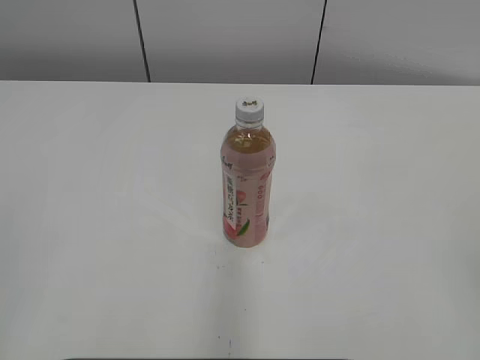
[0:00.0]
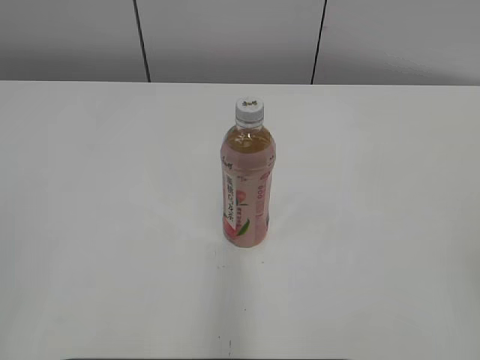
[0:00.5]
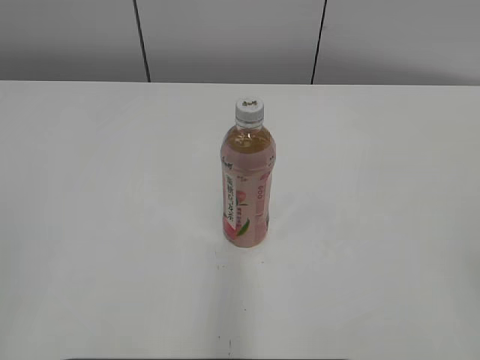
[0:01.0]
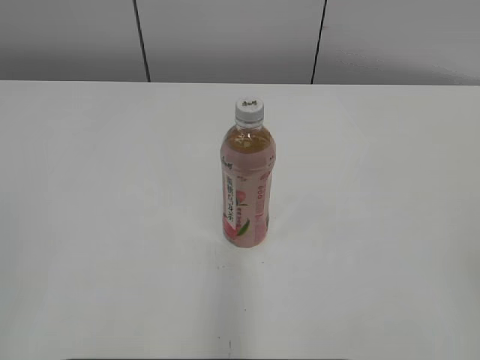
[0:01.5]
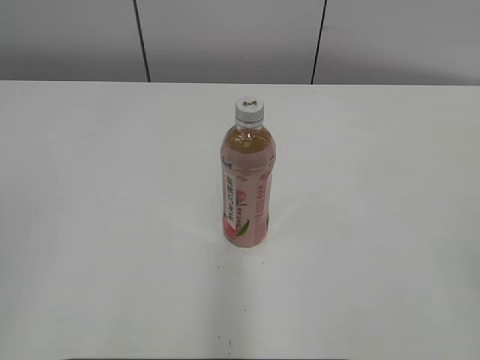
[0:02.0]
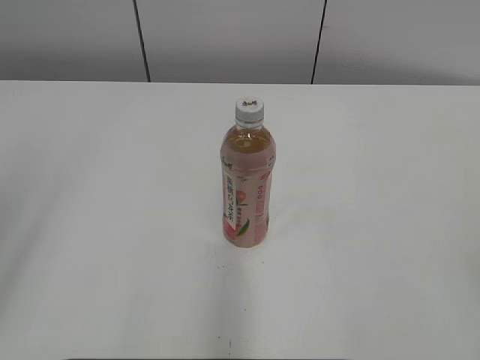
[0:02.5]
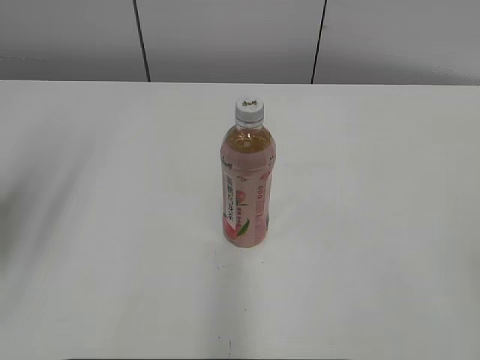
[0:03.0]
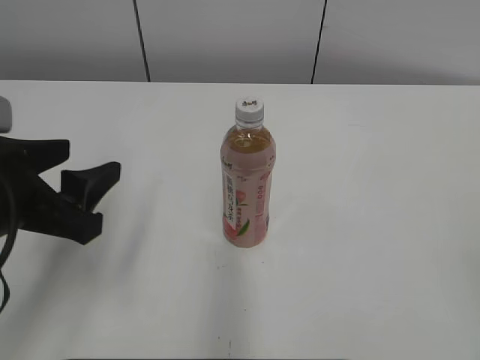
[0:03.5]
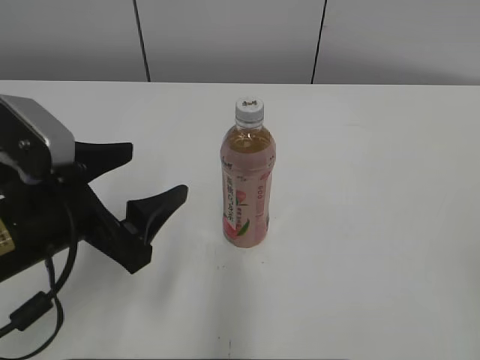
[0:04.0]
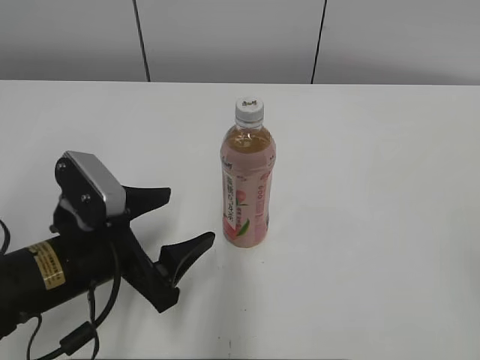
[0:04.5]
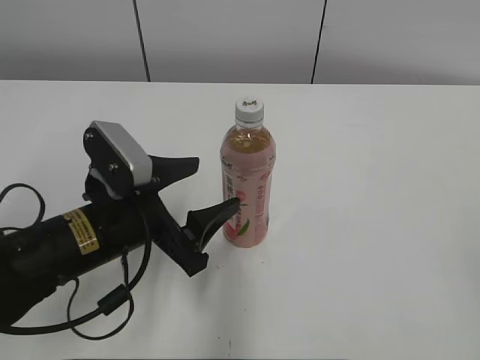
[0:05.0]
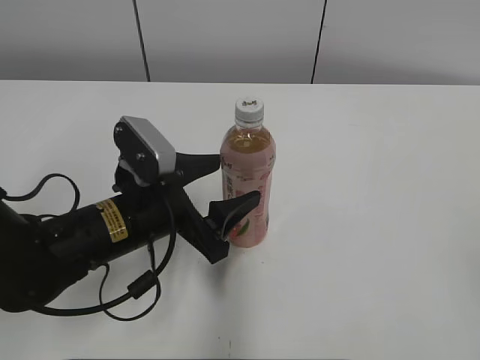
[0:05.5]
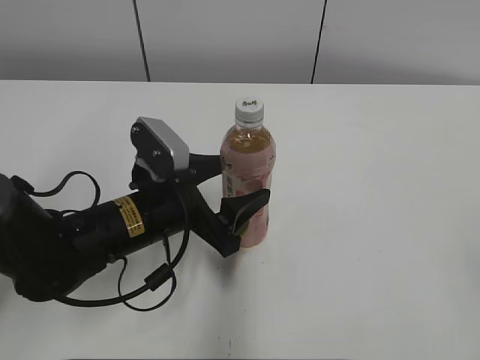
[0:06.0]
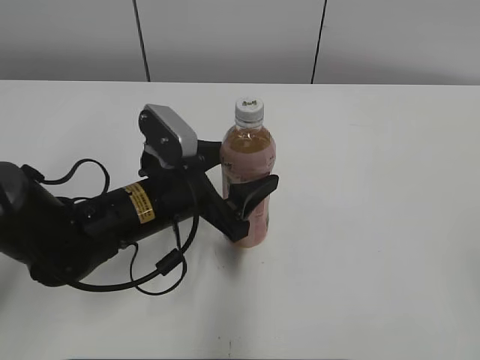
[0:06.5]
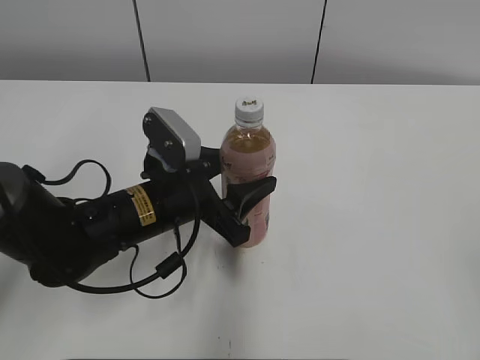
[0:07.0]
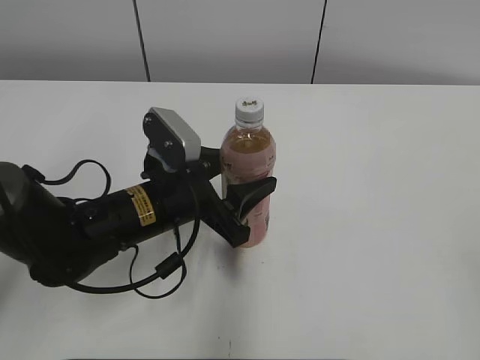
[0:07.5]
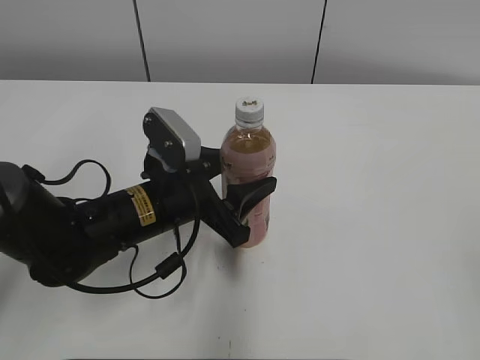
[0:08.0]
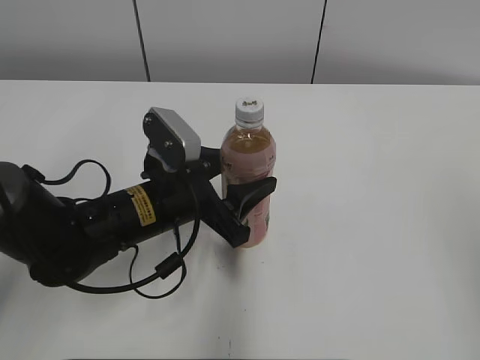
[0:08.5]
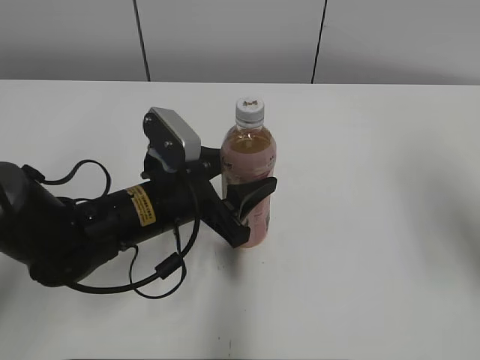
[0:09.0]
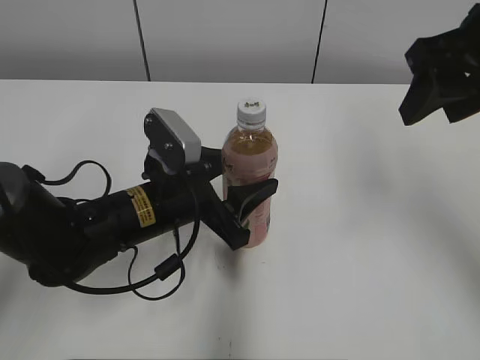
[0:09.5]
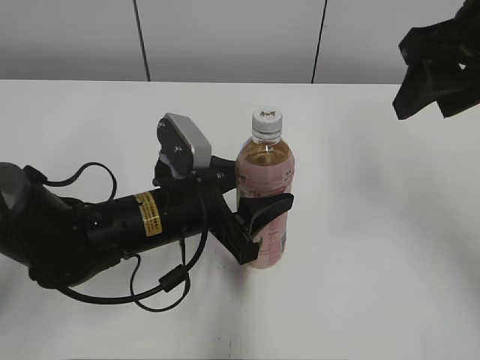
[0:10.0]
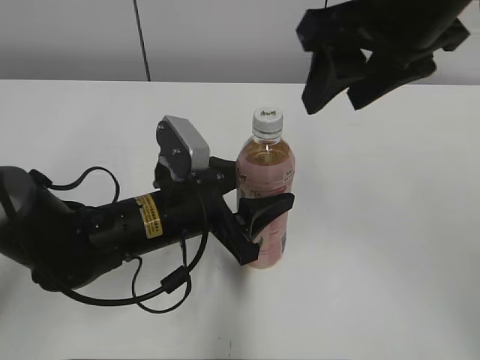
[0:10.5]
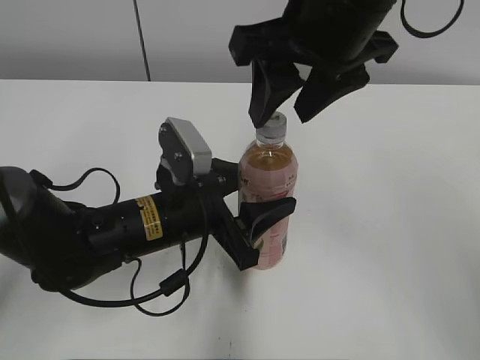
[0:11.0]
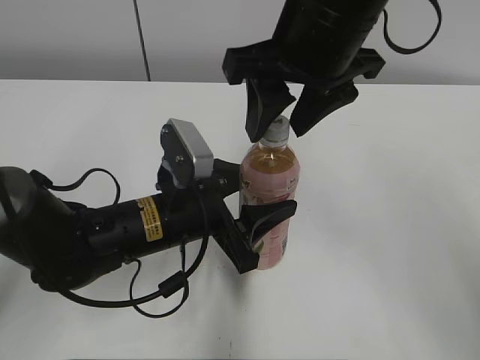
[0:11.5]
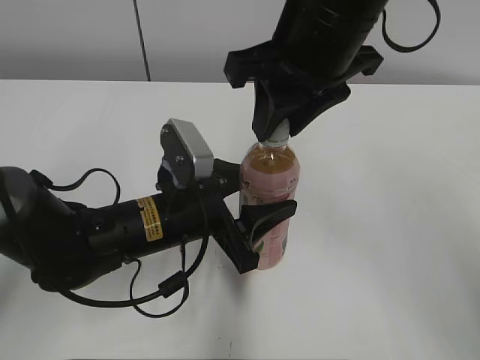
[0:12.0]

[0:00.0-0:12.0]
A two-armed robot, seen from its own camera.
Step, 0.0 to 7.0 s: Grab the Peach Oolong Tea with the left hand.
2.0 to 4.0 s: The left gripper heads forward, downward and to the right, covering approximately 25 cm, and opens.
4.0 to 6.0 s: The left gripper goes approximately 10 cm to the right, forward and downward.
6.0 to 8.0 s: The grippers make only small movements.
8.0 to 10.0 s: The right gripper goes some 30 cm forward.
10.0 to 12.0 s: The right gripper heads to the left, covering some 15 cm, and closes.

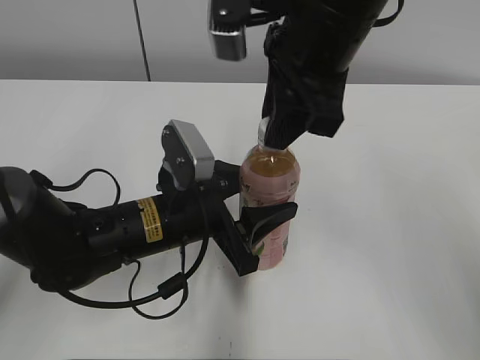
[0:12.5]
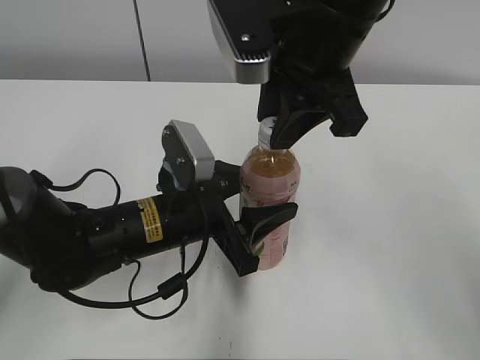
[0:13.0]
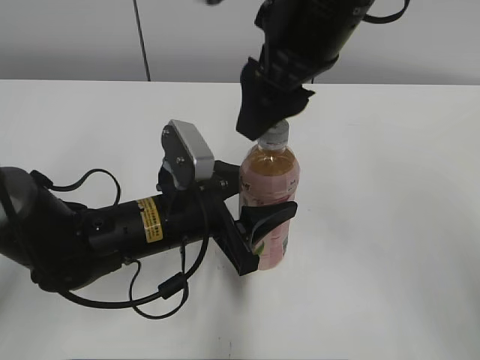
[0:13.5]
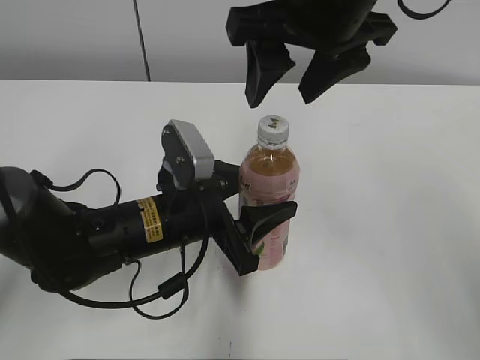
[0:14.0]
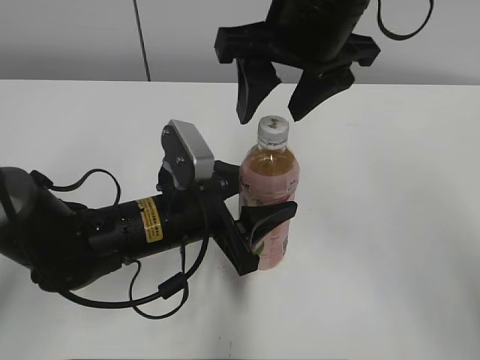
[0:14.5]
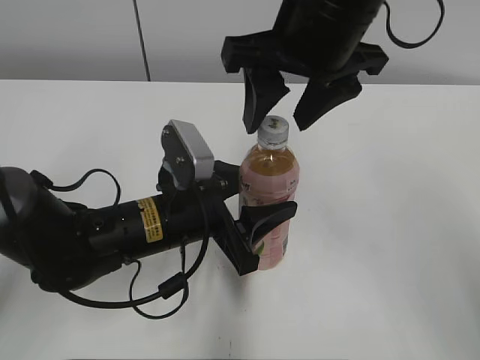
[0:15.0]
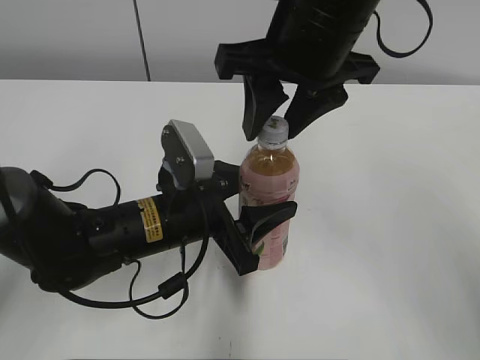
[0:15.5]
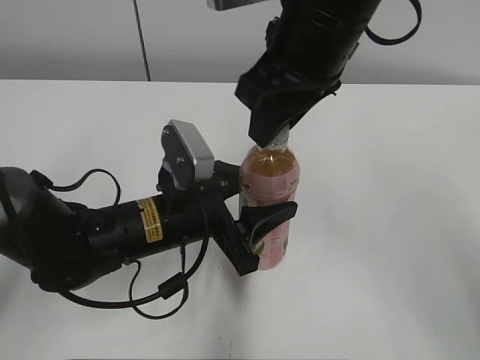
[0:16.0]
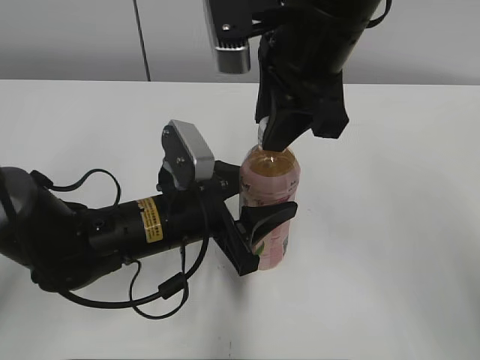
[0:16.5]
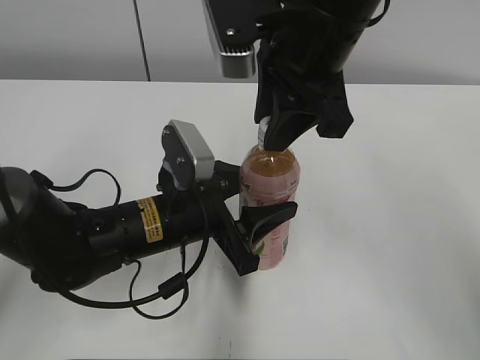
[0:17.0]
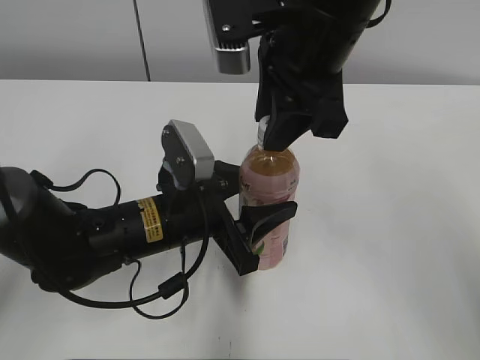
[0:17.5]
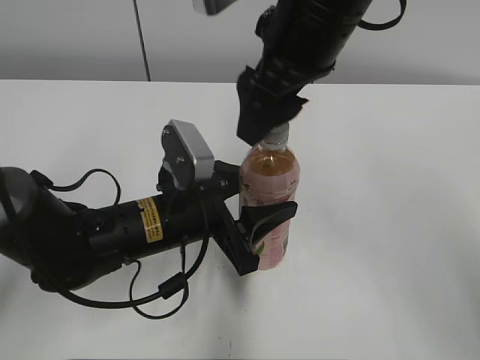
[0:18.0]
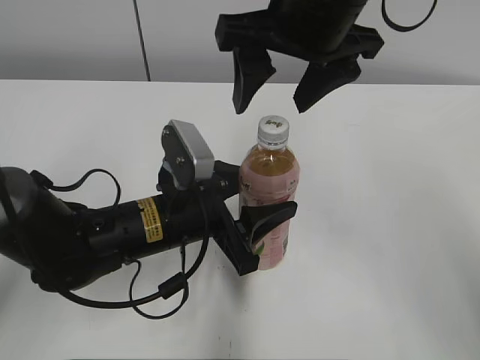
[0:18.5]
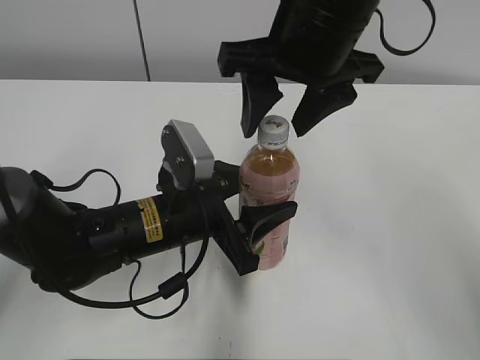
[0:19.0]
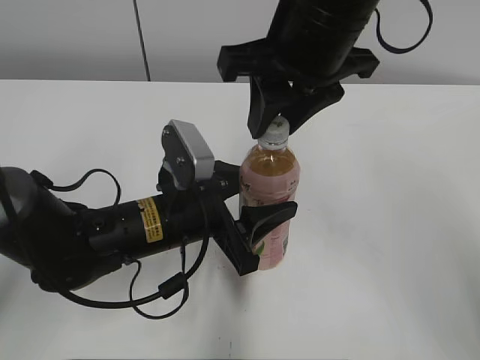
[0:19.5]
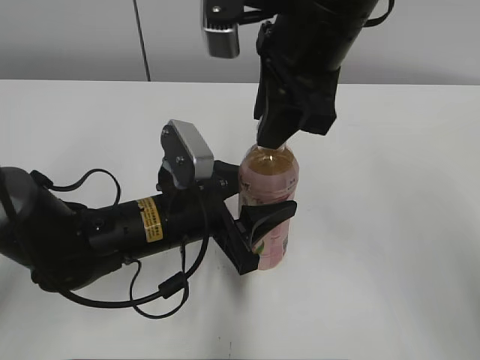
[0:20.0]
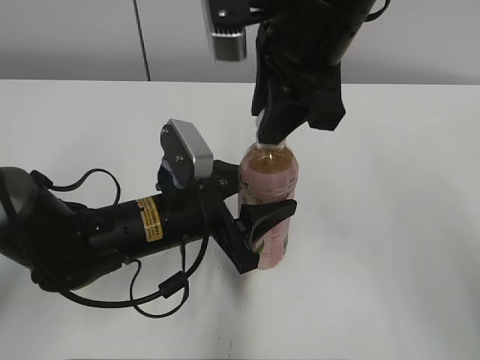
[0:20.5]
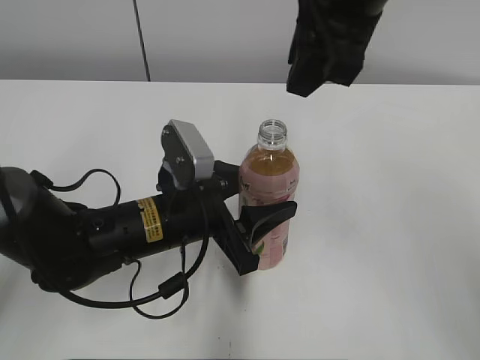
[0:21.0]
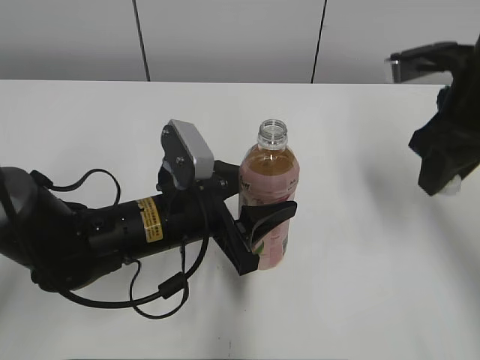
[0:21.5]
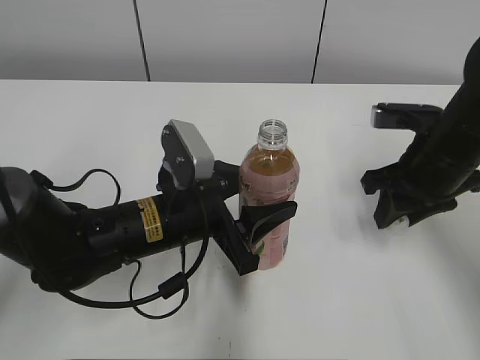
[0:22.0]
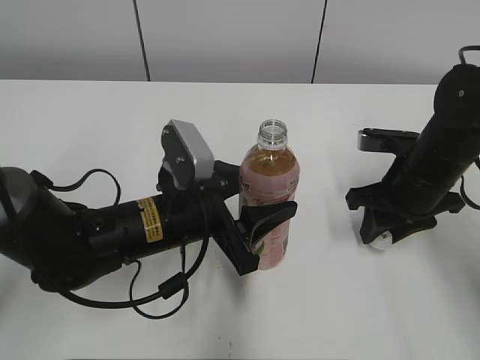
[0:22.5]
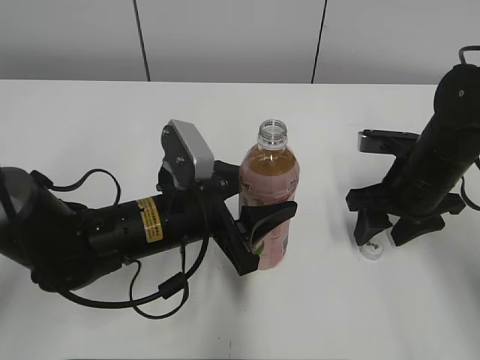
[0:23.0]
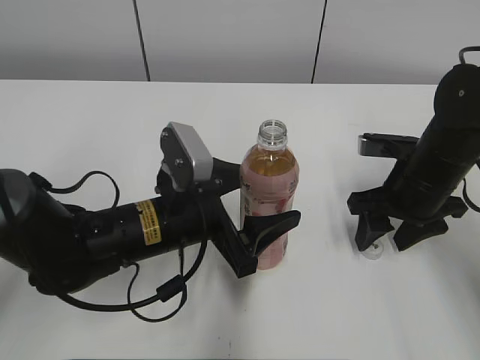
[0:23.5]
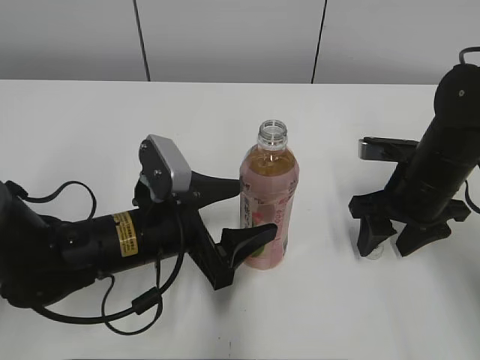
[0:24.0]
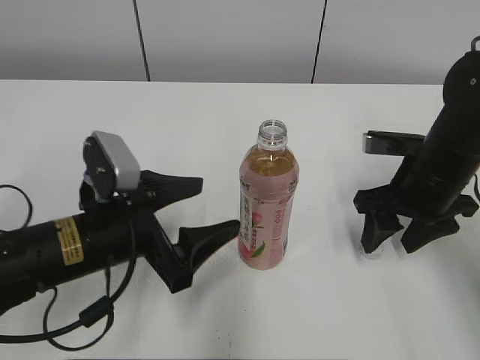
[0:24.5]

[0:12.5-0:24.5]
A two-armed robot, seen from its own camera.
Step, 21.5 to 23.0 s: Place the bottle cap on the right.
Step, 23.5 to 24.0 s: Place the Peach Oolong Tea with the left hand.
12.5 to 14.5 s: The right gripper opens its fingers.
14.5 to 16.5 s: The right gripper closes its fingers.
16.5 to 18.5 s: The right gripper opens up.
18.5 to 20.5 s: The right gripper closes.
20.5 to 22.5 s: The right gripper shifts roughly 25 cm downward and to the right.
22.5 to 24.5 s: The right gripper opens its fingers; the left gripper travels to the left by approximately 5 cm, and opens up.

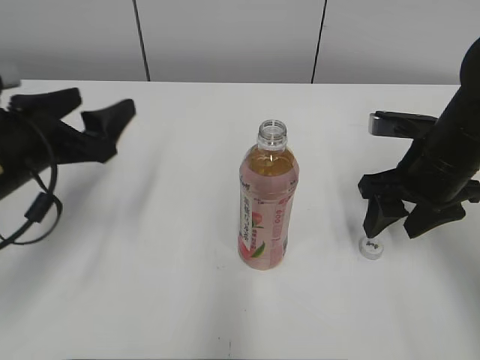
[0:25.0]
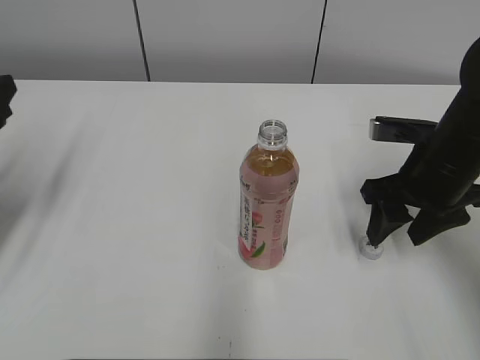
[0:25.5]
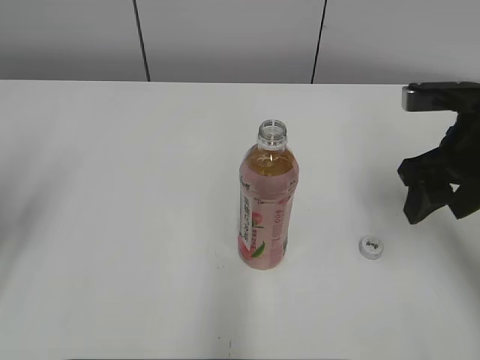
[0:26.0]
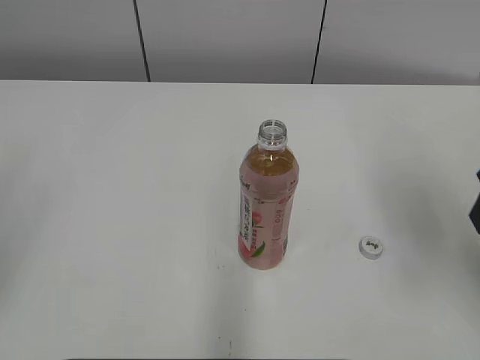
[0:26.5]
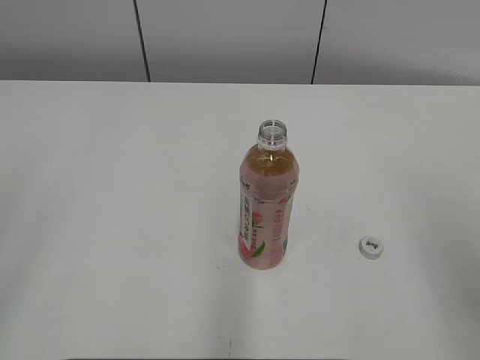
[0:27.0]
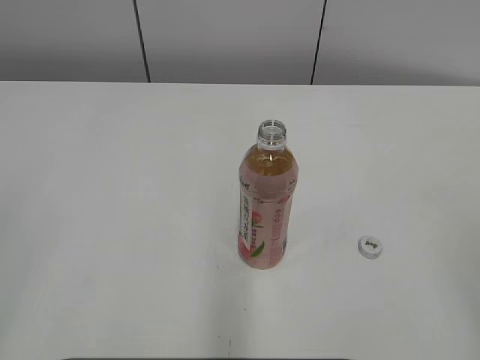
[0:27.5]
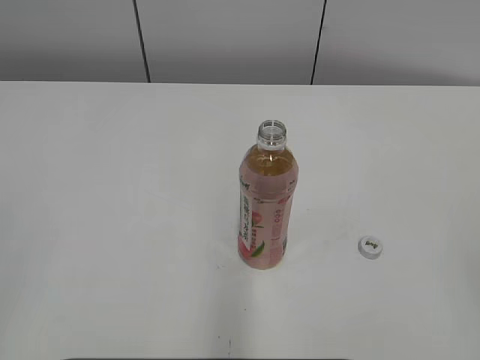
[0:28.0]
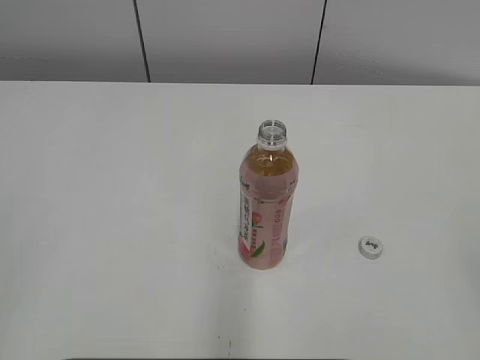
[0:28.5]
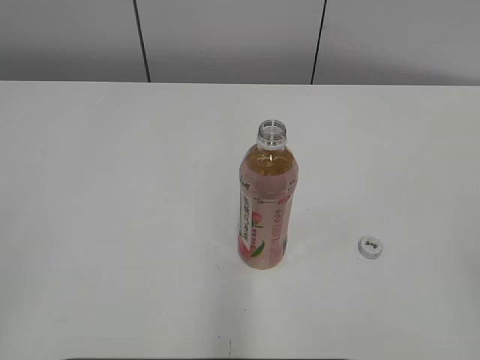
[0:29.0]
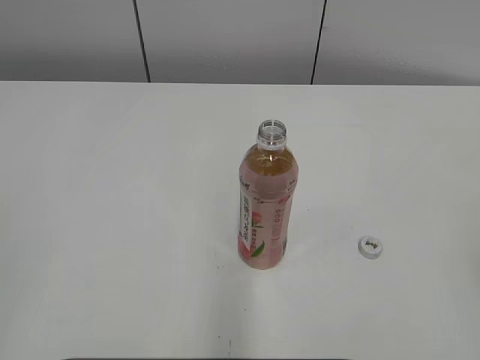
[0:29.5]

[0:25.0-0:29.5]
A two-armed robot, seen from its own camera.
25.0 to 27.0 s: The left gripper goes roughly 25 cm backward, upward and to the left. Meanwhile the right gripper moves backward and upward, about 20 cm.
27.0 to 29.5 s: The right gripper moves backward, some 15 cm, and closes up.
